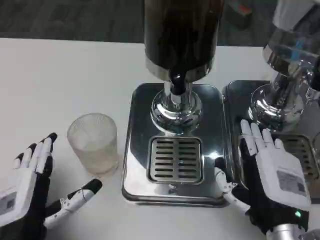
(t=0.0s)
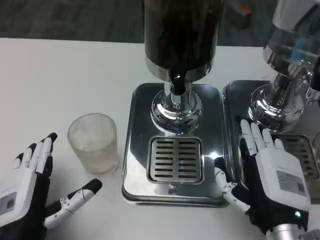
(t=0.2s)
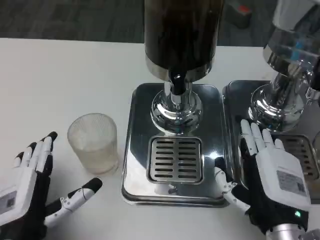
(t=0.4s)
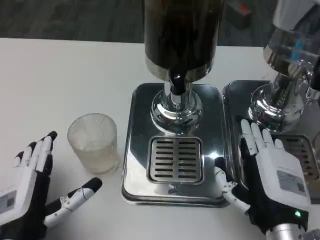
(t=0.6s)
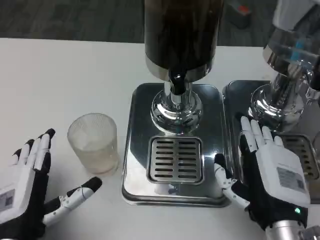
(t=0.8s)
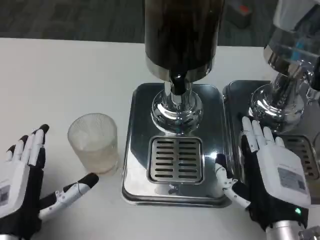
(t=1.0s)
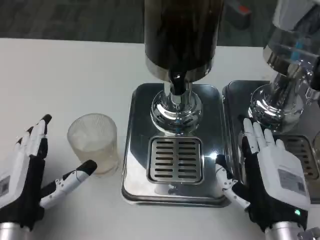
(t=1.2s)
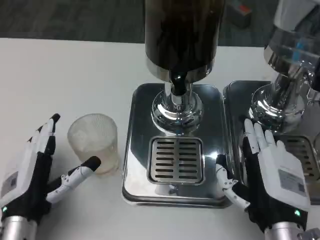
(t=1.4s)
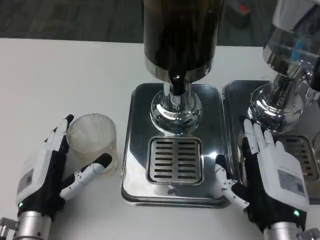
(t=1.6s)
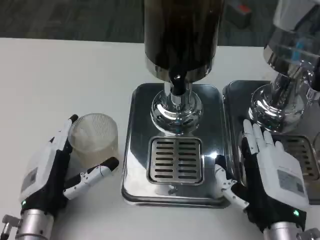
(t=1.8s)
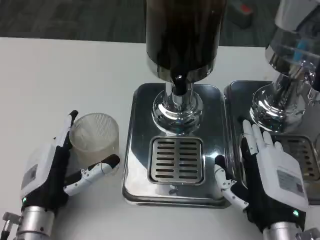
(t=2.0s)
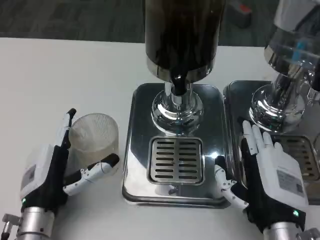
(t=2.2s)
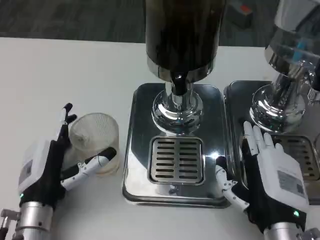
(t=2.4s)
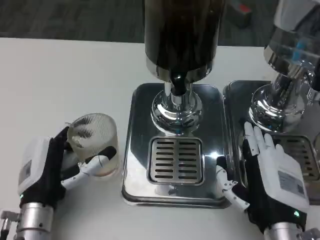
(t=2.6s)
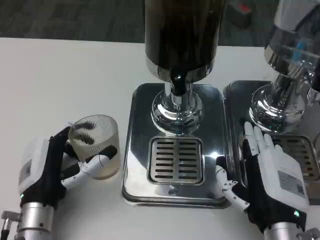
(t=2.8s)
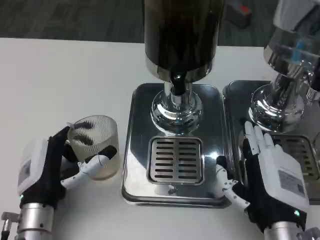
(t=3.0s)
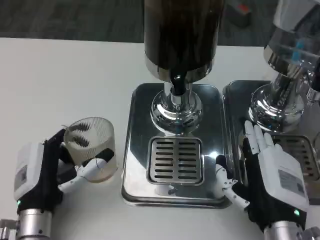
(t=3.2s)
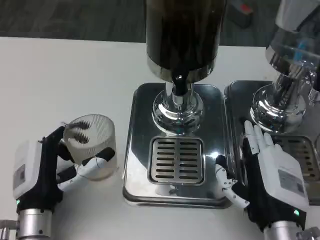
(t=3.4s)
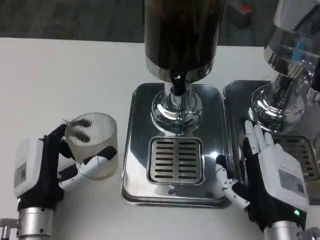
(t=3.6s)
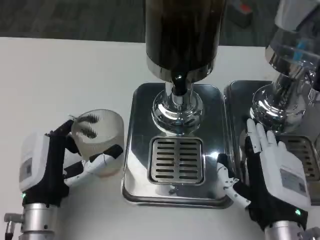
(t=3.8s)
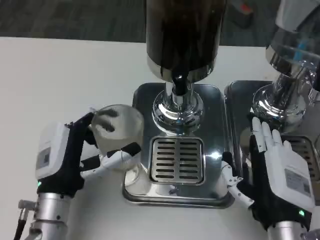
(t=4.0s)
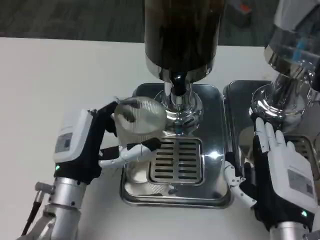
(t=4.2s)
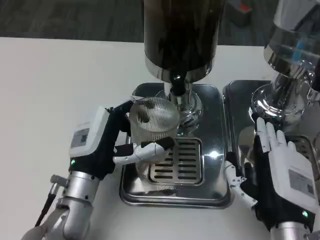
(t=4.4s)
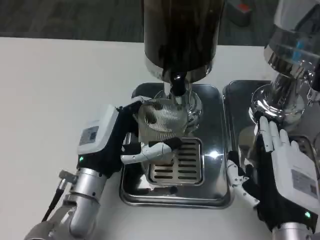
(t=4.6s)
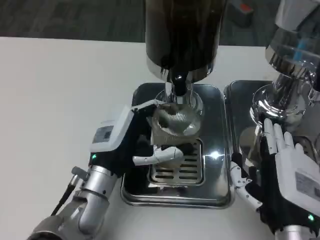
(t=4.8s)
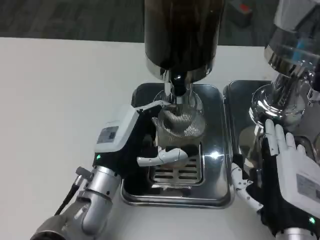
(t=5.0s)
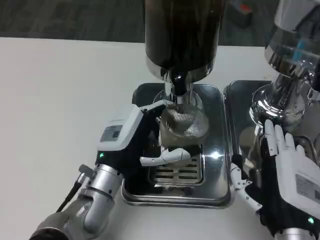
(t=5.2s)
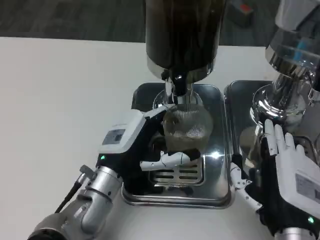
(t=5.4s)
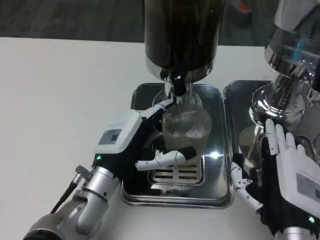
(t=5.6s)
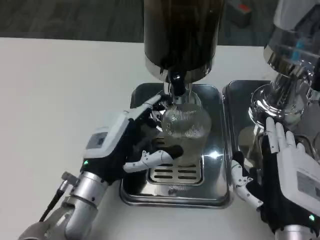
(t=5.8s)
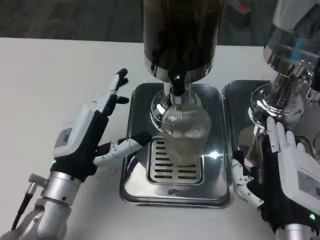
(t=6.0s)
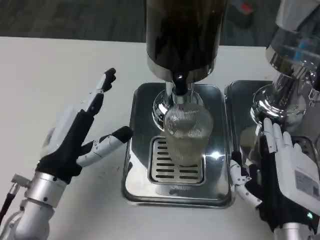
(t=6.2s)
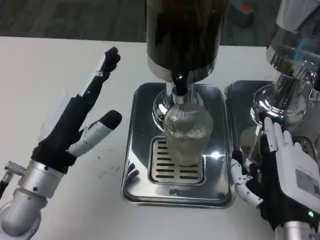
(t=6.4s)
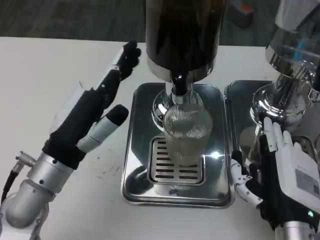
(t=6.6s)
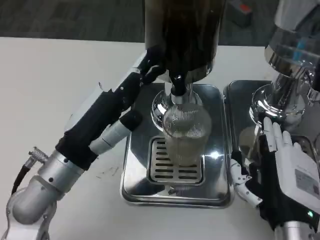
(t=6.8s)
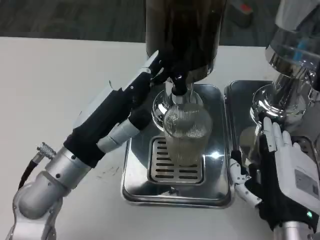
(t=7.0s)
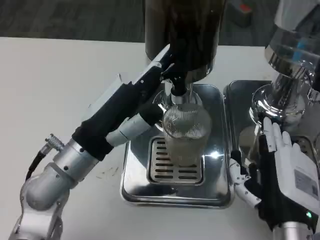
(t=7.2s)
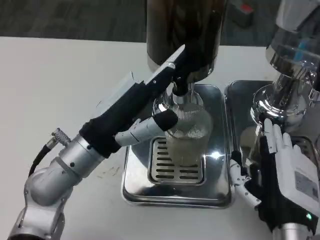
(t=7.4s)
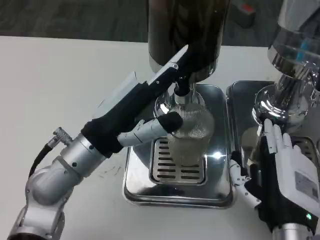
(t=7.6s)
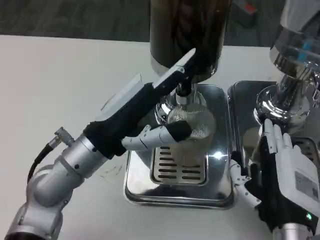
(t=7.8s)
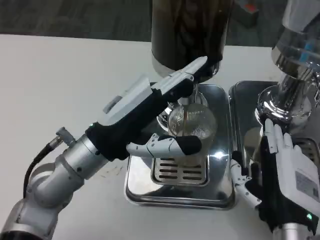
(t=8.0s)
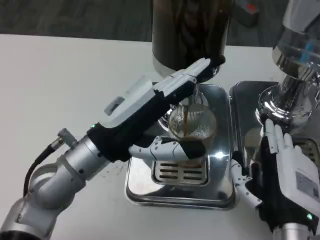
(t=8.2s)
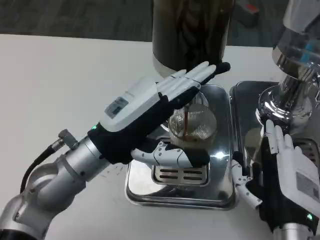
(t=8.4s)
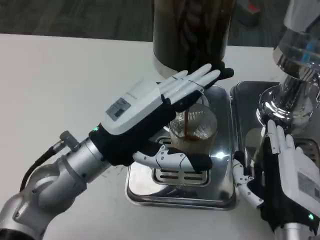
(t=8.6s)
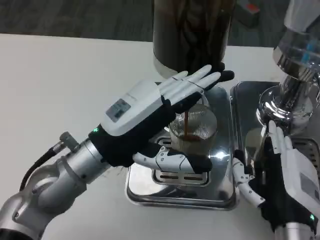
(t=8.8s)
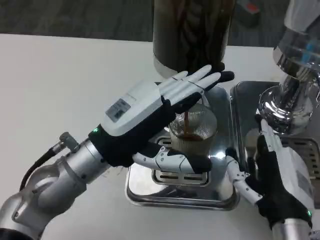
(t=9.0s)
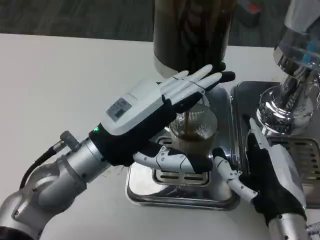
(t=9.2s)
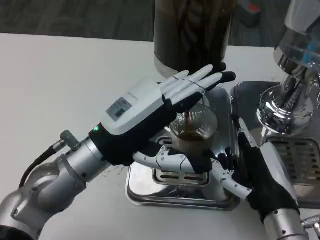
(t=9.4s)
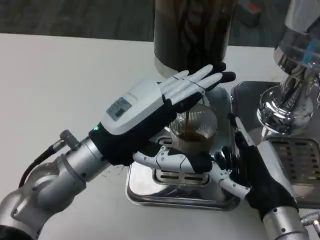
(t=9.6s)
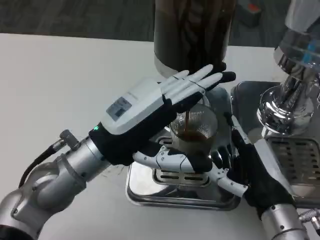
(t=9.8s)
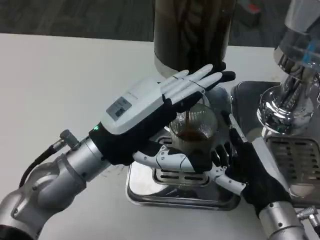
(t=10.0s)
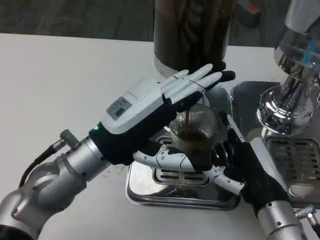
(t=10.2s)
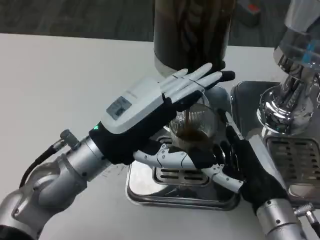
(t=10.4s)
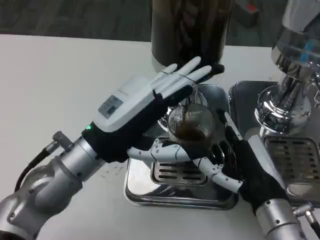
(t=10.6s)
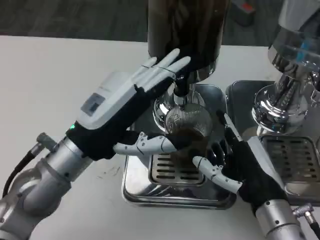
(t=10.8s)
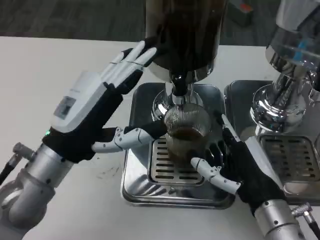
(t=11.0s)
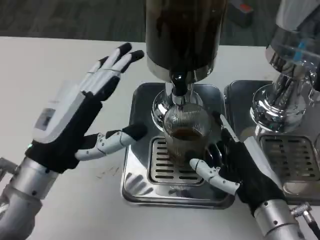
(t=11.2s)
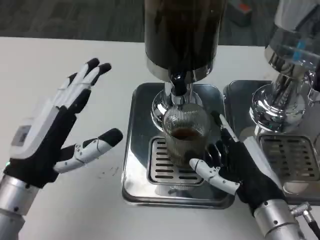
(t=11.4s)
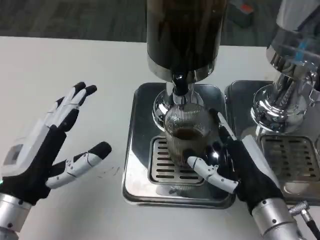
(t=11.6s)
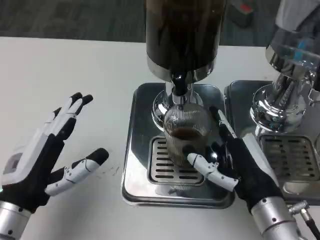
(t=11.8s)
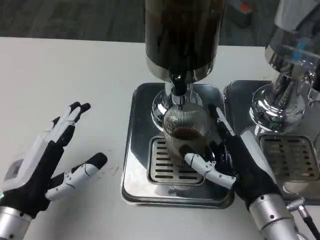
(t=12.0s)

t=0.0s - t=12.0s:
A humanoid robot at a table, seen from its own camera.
Task of the whole recording: Grasp the cup under the faucet to collect the drink, then remove the cup.
t=0.0s - t=1.6s: The left hand moves forward, some 5 cm.
t=1.6s - t=3.0s: The hands make only small movements.
t=3.0s - t=4.4s: The left hand heads to the right, covering some 5 cm.
t=6.0s - t=7.6s: The left hand shifts approximately 5 cm upward.
t=9.0s - t=10.4s: The hands stay close to where they were, moving slightly.
t=10.4s - t=12.0s: The left hand shifts some 15 cm to the left, backward and downward.

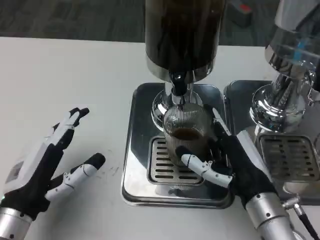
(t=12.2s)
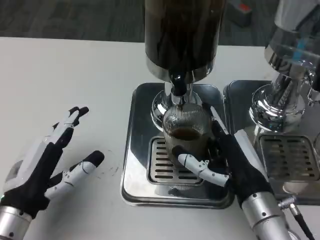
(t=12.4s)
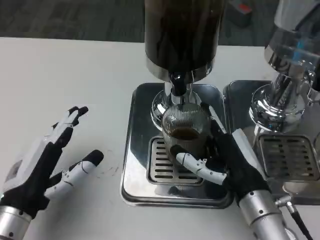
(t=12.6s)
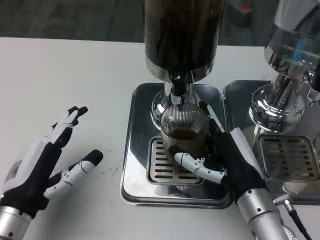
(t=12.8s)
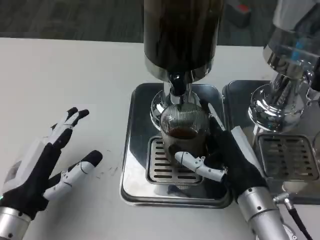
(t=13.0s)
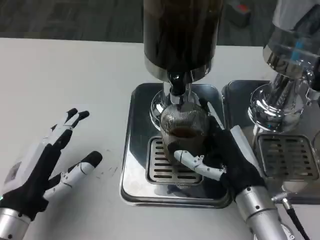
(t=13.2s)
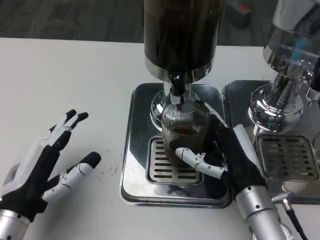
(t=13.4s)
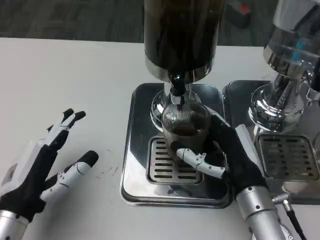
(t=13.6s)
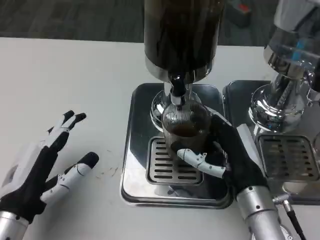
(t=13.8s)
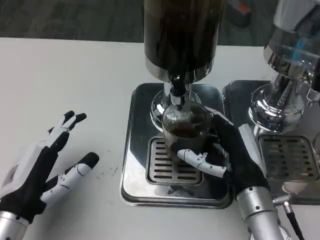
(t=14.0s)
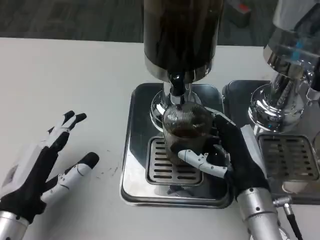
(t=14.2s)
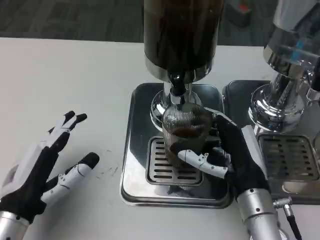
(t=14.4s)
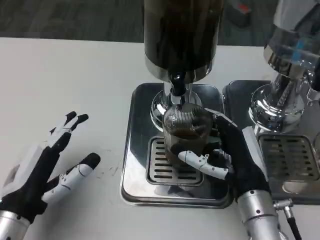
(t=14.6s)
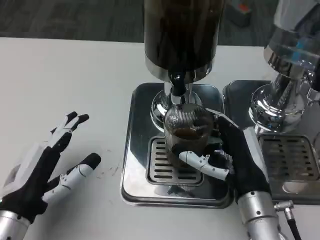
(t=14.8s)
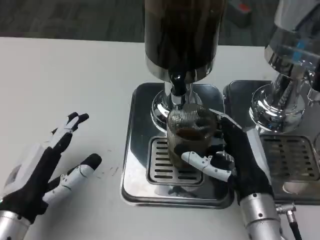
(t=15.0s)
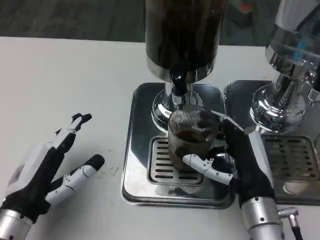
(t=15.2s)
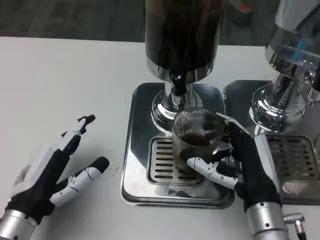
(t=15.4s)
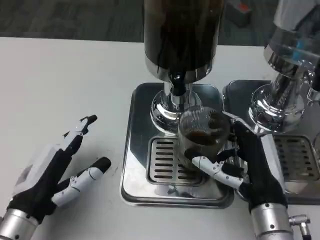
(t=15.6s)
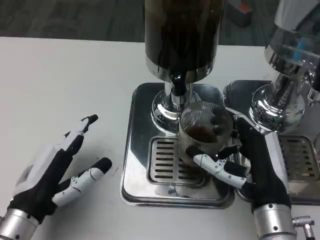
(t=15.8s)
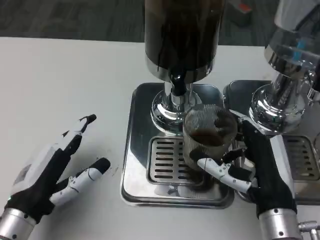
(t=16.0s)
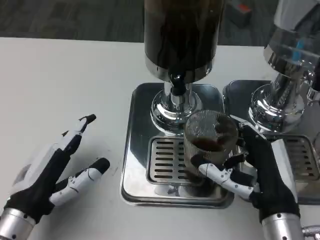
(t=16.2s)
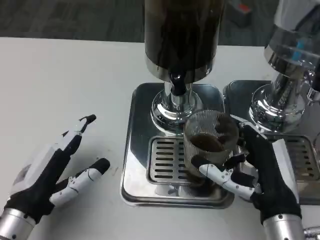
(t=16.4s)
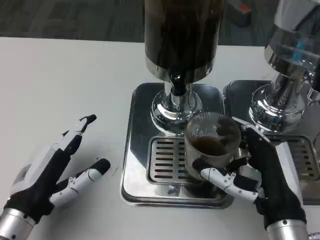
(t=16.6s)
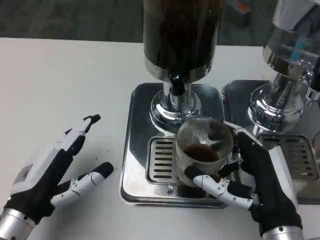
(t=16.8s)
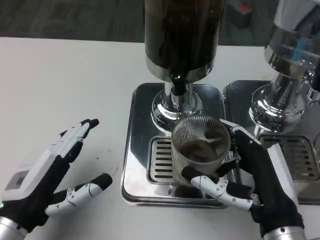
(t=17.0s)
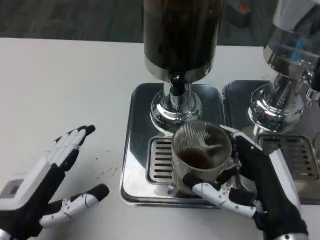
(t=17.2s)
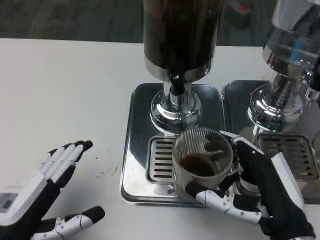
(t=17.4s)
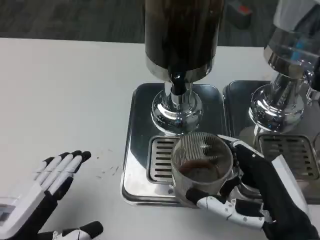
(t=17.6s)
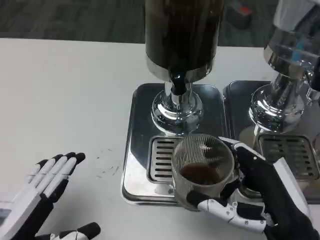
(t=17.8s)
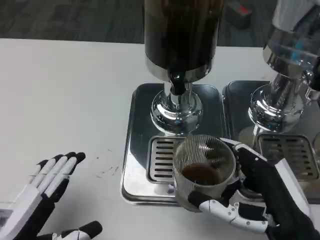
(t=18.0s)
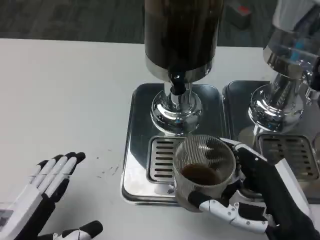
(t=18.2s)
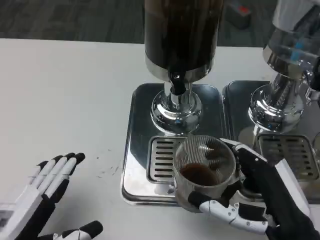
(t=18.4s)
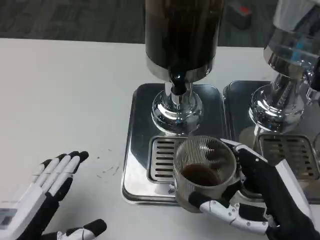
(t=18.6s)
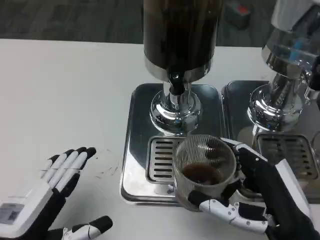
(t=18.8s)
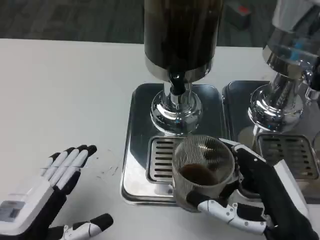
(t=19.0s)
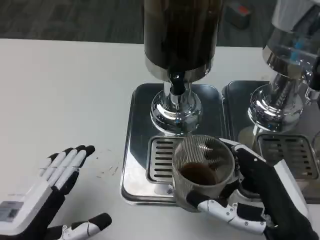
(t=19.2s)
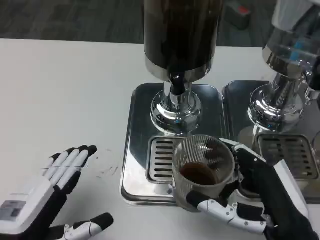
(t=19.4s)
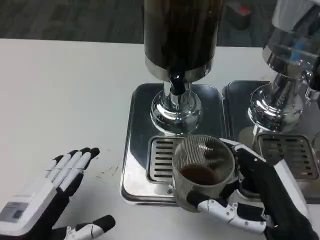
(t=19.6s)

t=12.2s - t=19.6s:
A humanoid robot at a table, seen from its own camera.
Task of the whole recording: Grasp the cup under the faucet to collect the drink, then remove the cup.
t=12.2s - t=15.2s: The hands make only small movements.
t=15.2s - t=16.6s: The right hand ends up about 5 cm from where it was.
t=16.6s - t=18.2s: The left hand travels backward by roughly 10 cm.
t=18.2s - t=19.6s: The hands stay close to where they were, moving slightly.

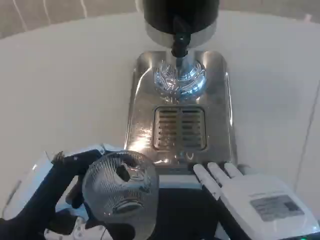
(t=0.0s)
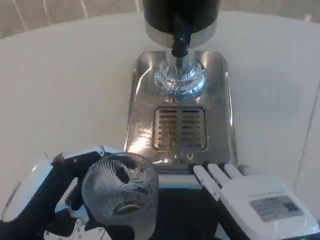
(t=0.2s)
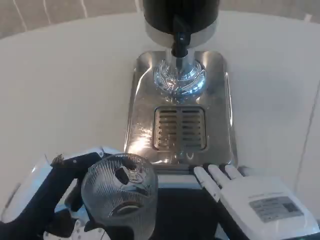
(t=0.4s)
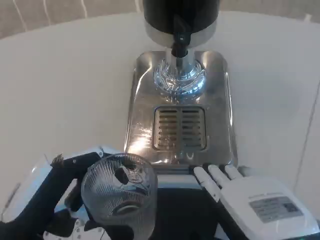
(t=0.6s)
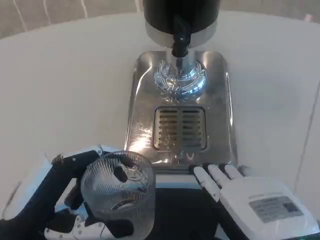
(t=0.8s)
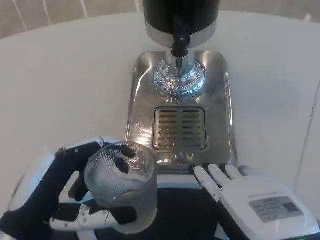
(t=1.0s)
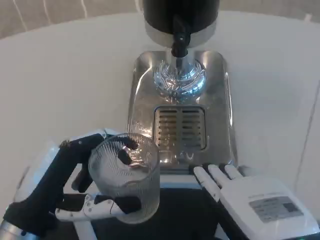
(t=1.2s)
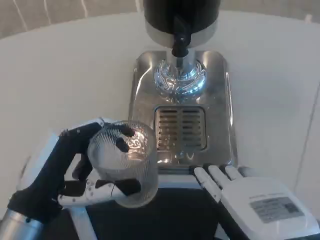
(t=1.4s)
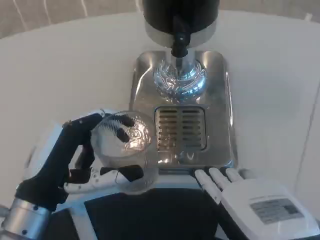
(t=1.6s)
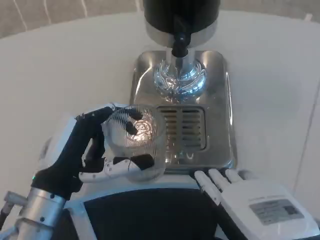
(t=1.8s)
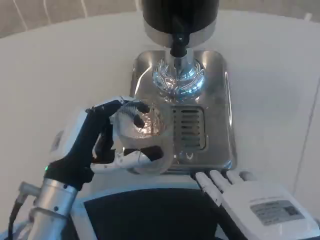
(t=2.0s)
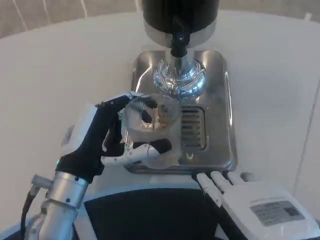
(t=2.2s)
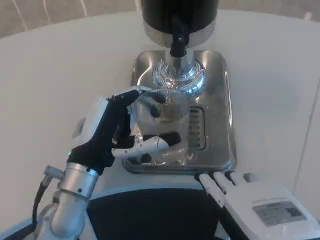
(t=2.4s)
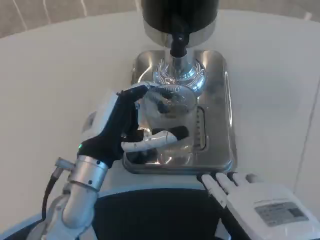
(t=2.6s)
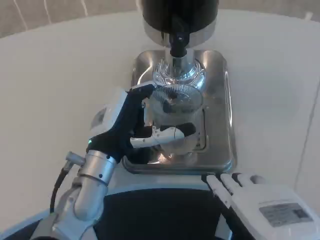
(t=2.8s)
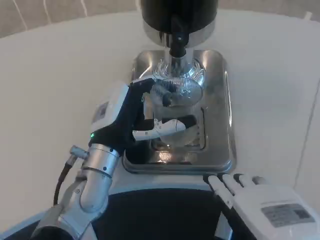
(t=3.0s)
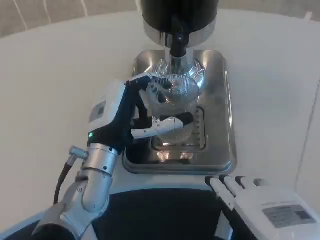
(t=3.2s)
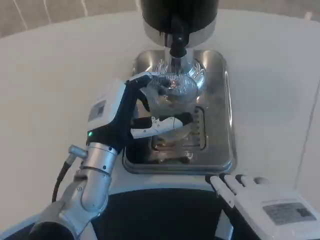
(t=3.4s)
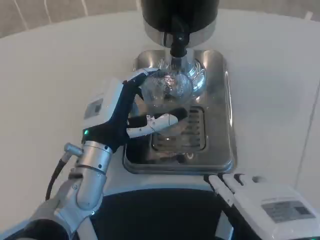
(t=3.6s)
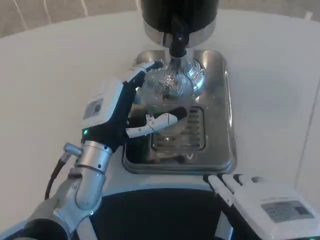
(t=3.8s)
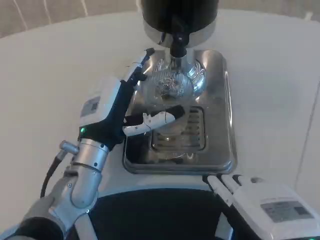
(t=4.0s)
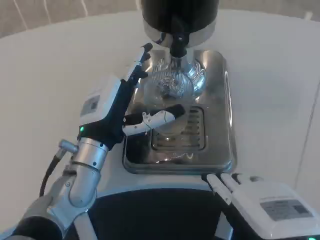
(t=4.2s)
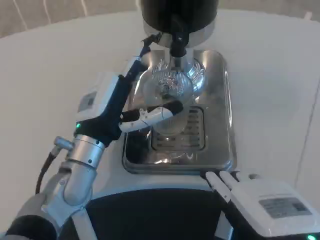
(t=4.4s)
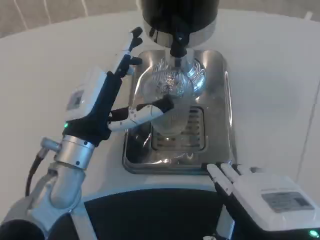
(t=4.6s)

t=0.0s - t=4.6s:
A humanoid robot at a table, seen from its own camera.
Task of the whole recording: Grasp the cup under the faucet to collect the drink, then remove the cup.
t=0.0s - t=1.6s: The left hand shifts approximately 5 cm forward.
t=1.6s - t=3.0s: The left hand heads forward and to the right, covering about 10 cm.
